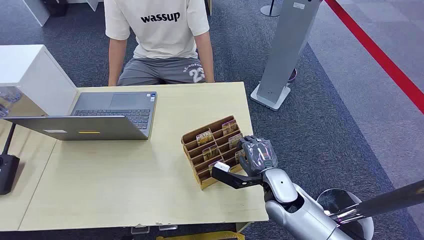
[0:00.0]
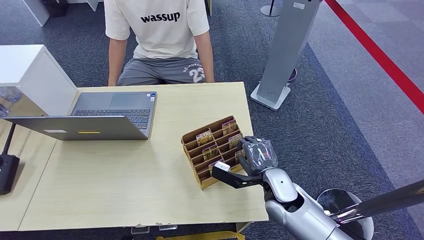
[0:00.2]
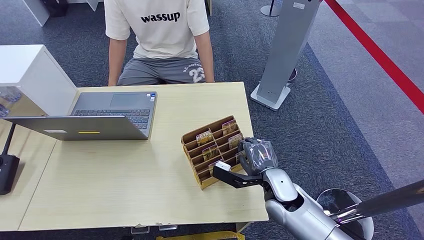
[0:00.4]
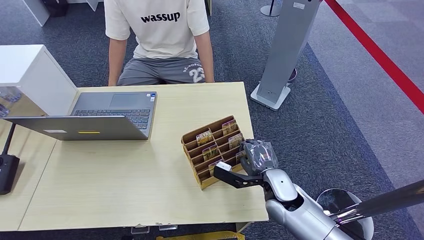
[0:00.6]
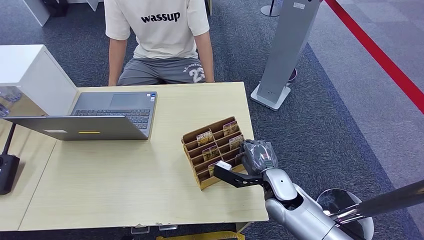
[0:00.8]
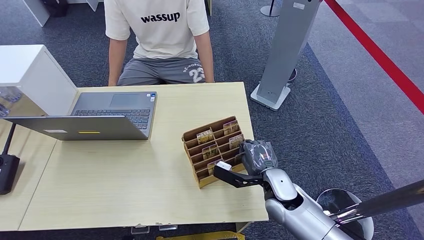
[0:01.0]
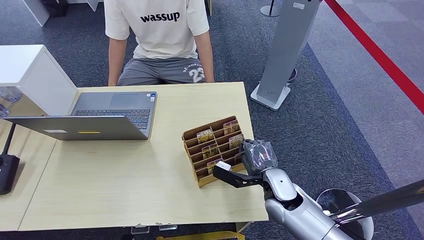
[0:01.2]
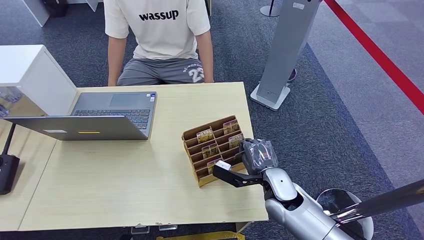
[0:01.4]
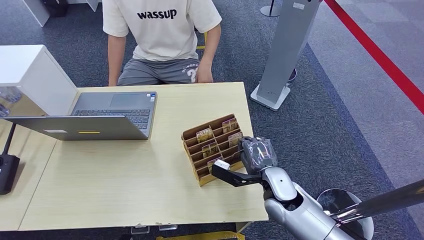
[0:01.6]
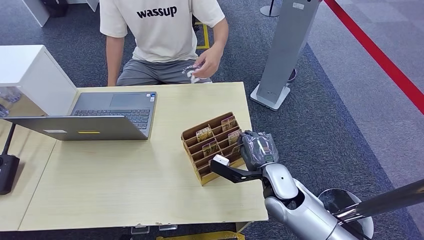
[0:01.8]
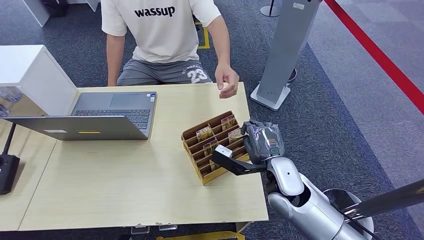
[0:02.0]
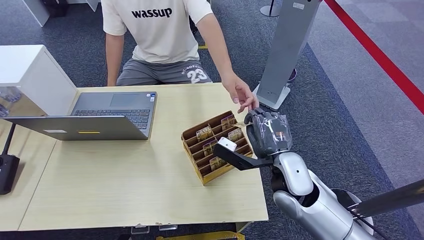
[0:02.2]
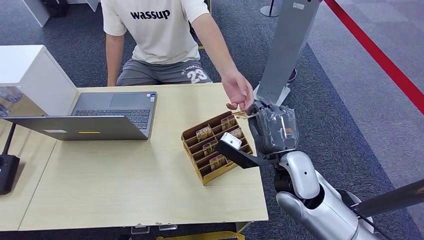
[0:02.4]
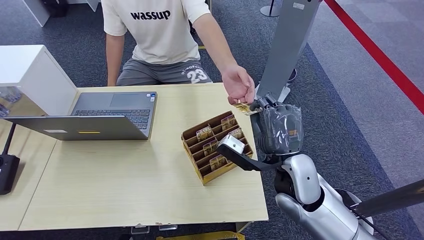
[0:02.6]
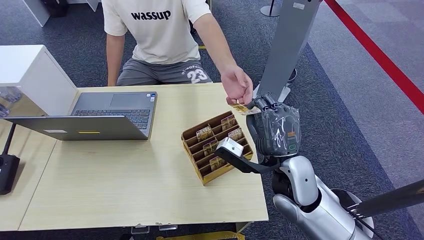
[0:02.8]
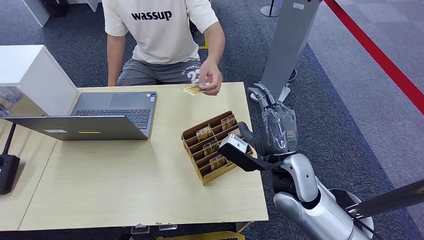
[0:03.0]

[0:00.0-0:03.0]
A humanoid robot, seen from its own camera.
Step, 0:00.0 to 0:01.6: Pick up the room card from the card holder.
Step, 0:02.0 to 0:03.0: Hand the room card to the target.
0:01.6 to 0:03.0: The right hand is displaced upward by approximately 10 cm.
